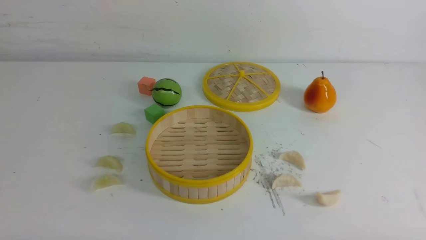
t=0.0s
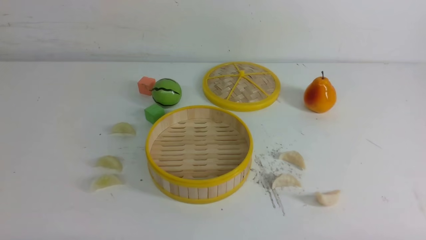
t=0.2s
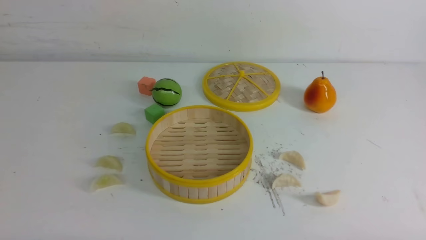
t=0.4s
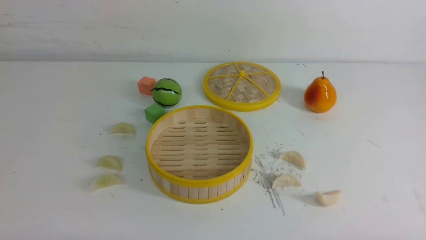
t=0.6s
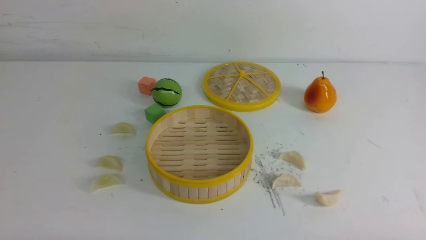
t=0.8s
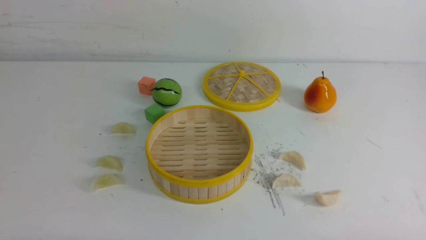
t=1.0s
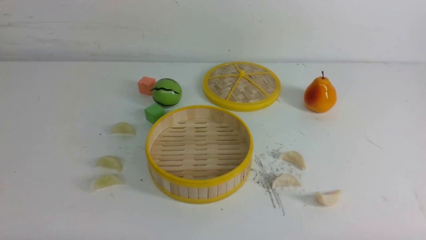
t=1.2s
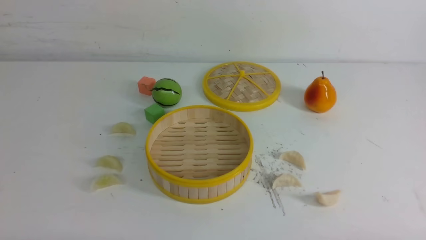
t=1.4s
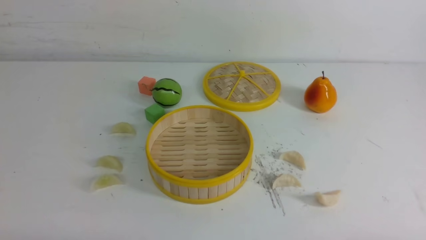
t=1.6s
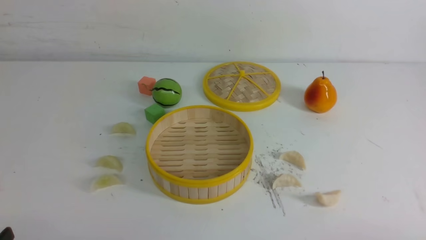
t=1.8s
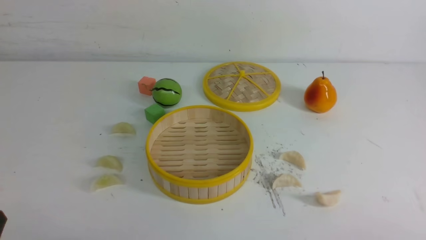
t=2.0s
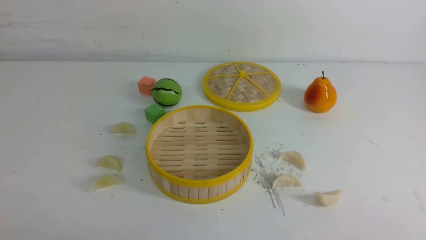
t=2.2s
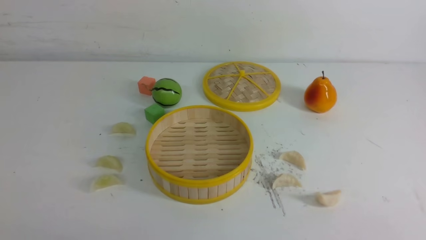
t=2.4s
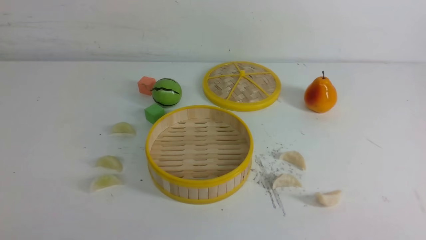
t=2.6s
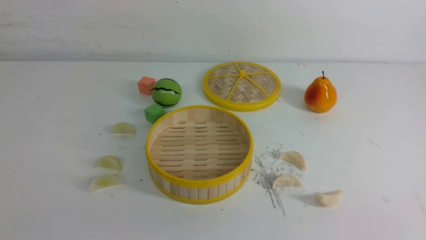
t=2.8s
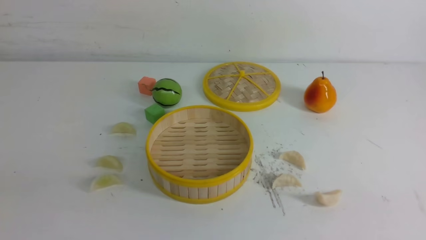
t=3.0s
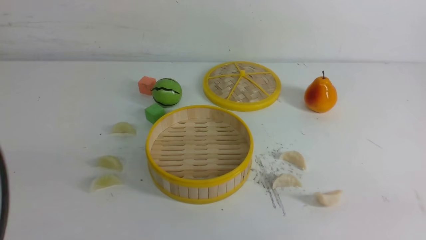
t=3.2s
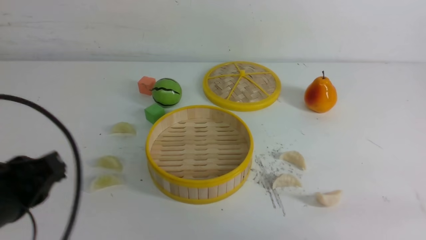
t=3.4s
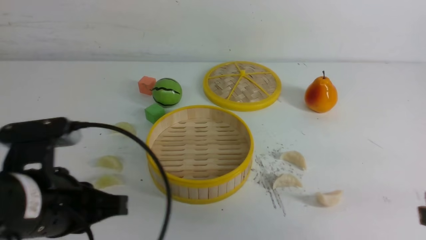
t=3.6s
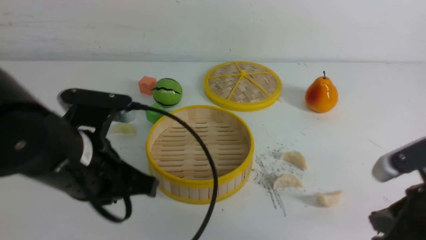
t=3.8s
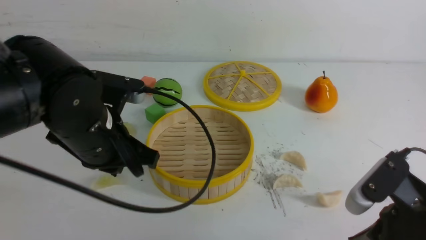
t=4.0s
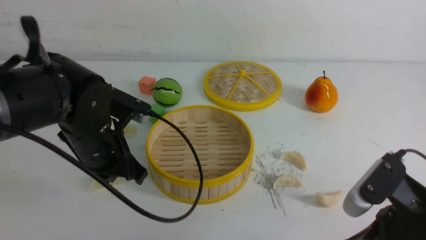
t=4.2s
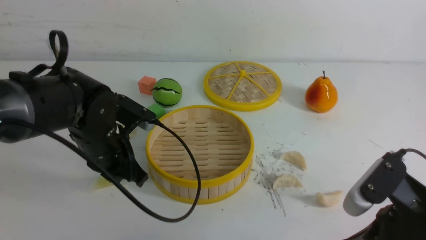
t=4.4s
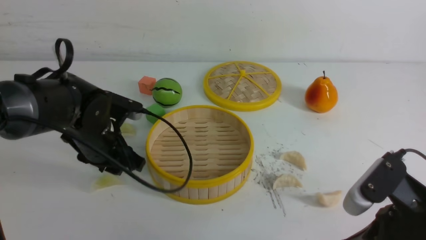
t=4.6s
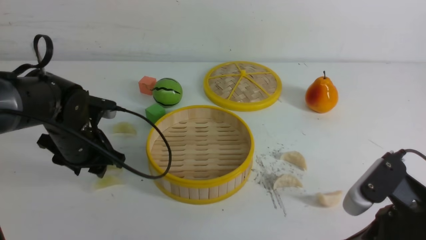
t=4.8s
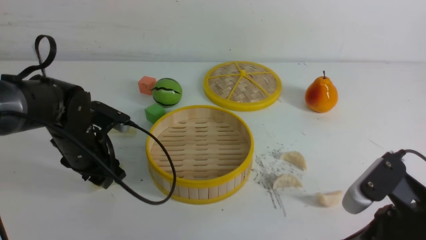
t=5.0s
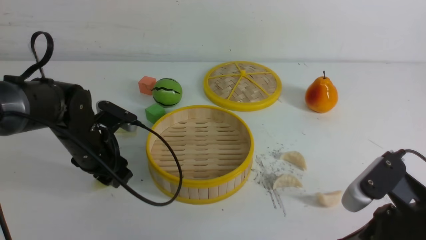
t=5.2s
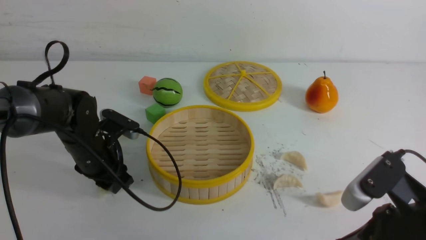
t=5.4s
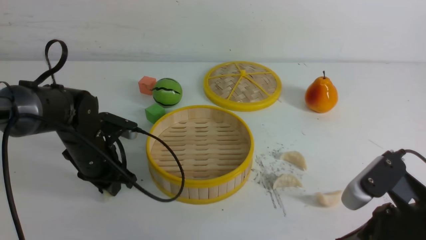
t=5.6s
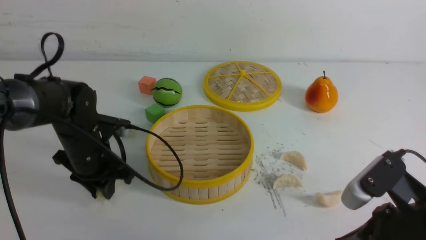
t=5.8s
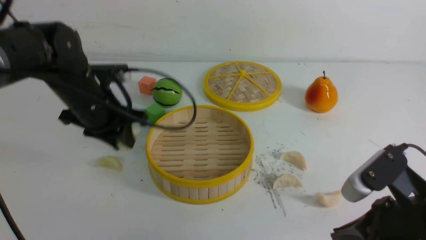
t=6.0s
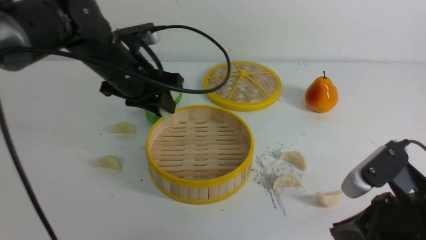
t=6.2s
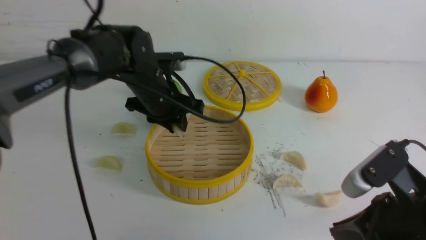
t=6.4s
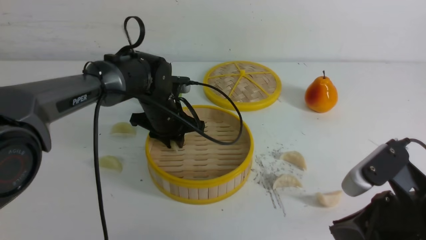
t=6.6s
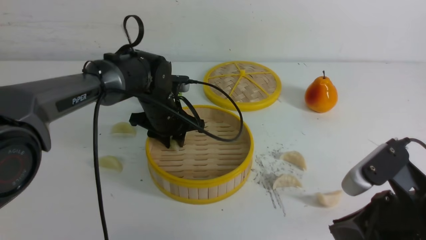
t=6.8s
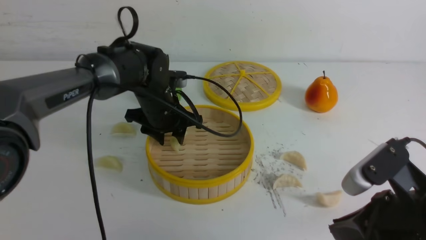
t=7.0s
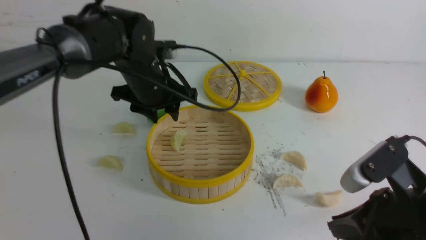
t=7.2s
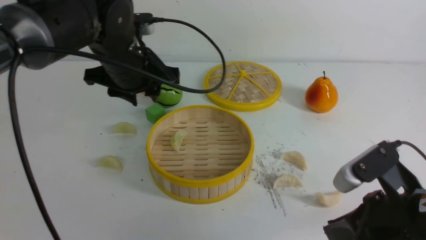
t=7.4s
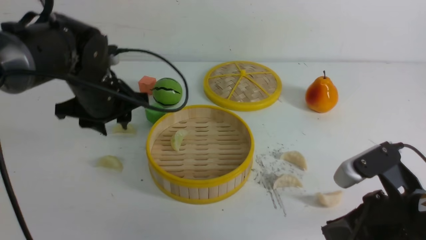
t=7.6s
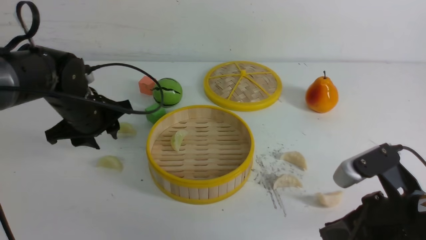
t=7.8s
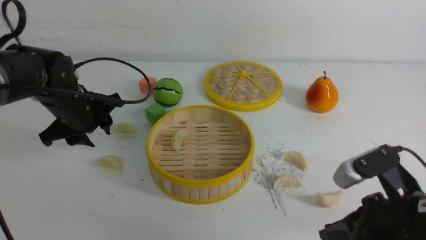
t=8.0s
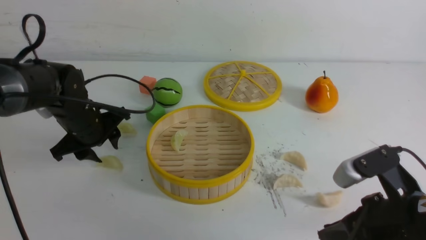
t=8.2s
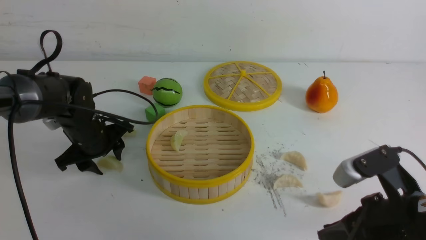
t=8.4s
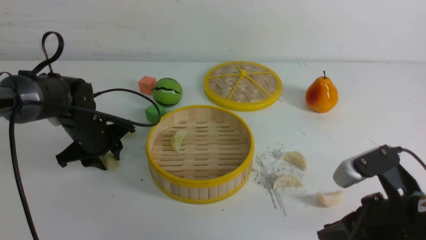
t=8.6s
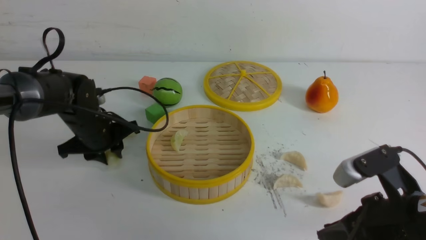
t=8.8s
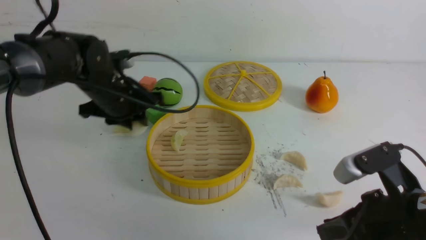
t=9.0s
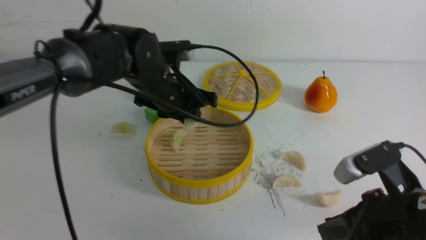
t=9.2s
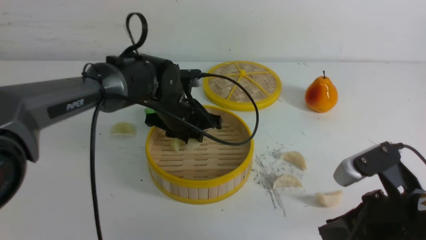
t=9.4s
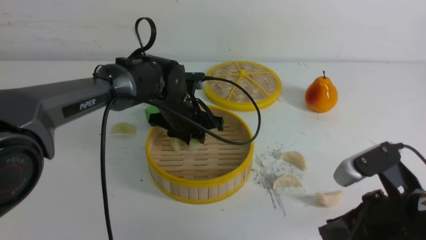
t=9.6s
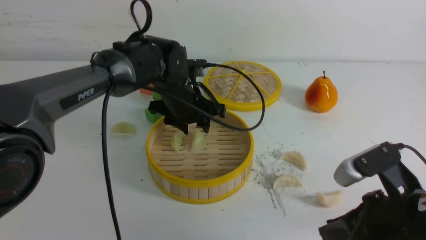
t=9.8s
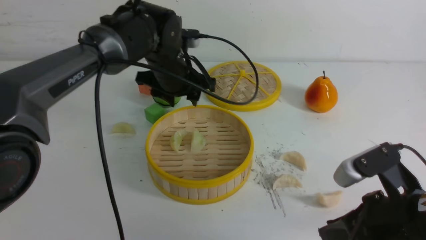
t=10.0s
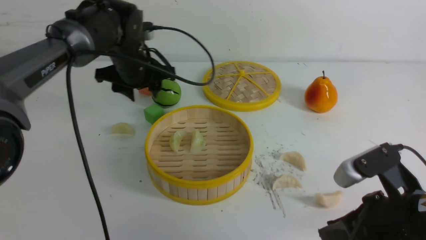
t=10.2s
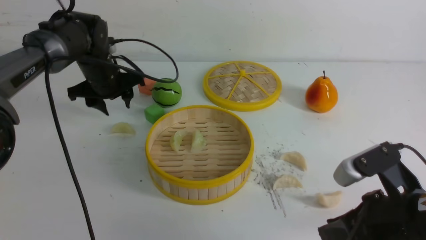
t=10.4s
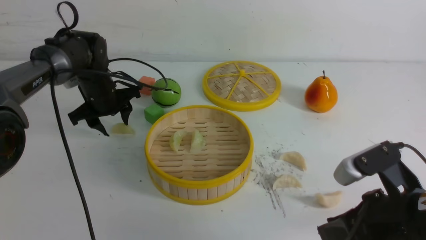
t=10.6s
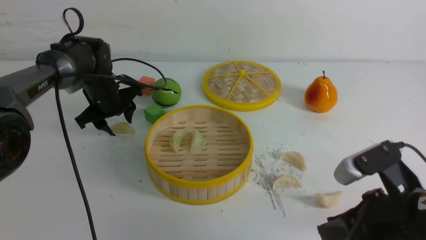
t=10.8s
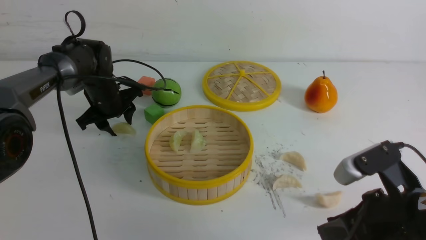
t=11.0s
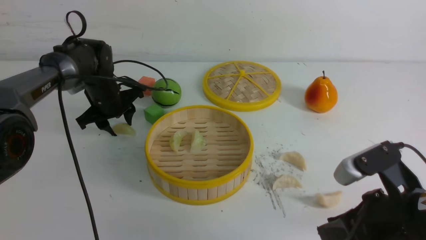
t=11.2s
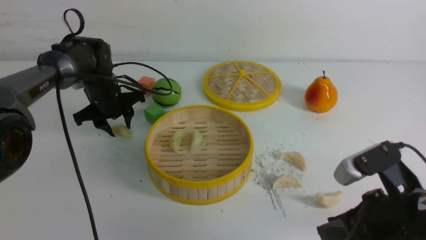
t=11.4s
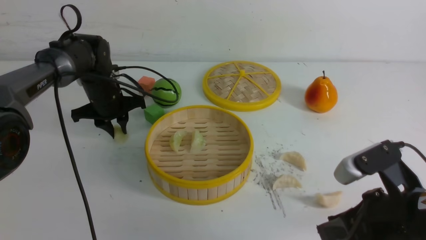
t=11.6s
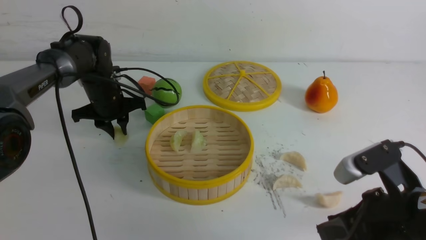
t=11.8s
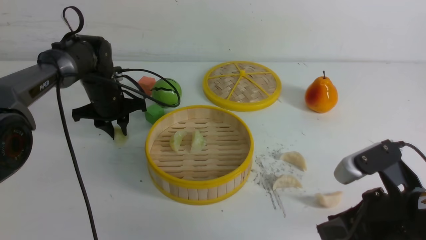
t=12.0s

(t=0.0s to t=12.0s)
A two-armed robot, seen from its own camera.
Task of the whole recording: put the dumplings into the steamer on the white table.
Step, t=0.0s - t=5.6s: use the left arm to grab a dumpling.
Step, t=5.8s - t=7.0s: use the left arm to put the dumpling into the steamer.
Step, t=7.2s - t=8.6s: use the left arm to grab a dumpling.
Step, t=9.0s - t=9.6s: use the left arm to put the dumpling into the steamer.
Step, t=9.8s - t=12.0s: use the left arm to grab a dumpling.
t=3.0s - t=4.4s: The left gripper travels forward and downward by roughly 25 cm, while the right gripper heads forward, to the left and downward, covering roughly 15 cm.
t=4.4s - t=6.0s: The left gripper moves forward, roughly 5 cm, and opens and closes again.
t=6.0s - t=7.6s: The left gripper moves roughly 5 cm downward and comes back.
t=7.6s - t=9.0s: The left gripper reaches about 10 cm downward, then returns.
t=9.0s - t=10.4s: The left gripper moves forward and to the left, approximately 10 cm, and opens.
t=10.4s - t=12.0s: The left gripper ends up some 5 cm from where it was, and closes.

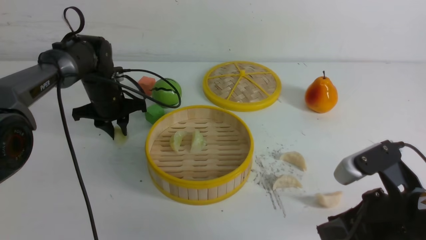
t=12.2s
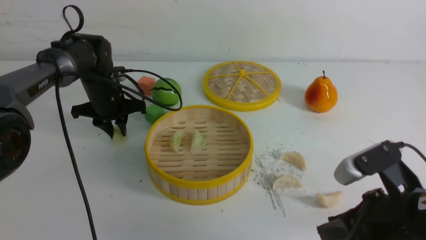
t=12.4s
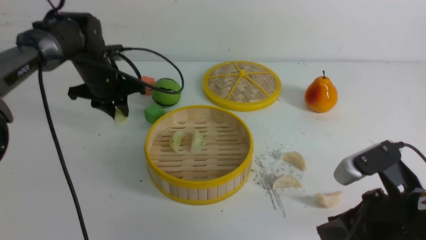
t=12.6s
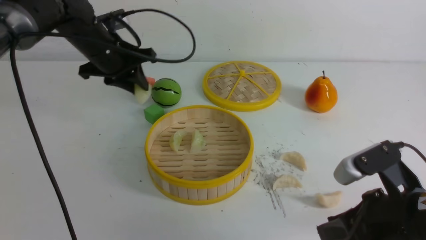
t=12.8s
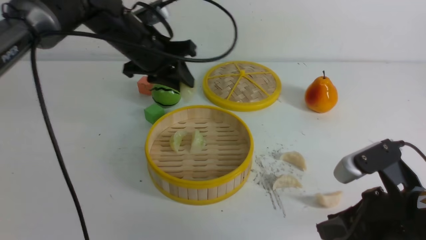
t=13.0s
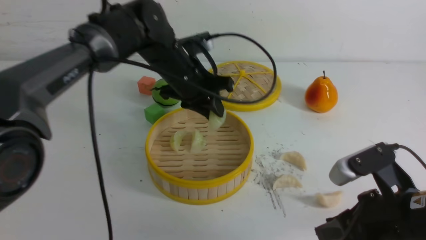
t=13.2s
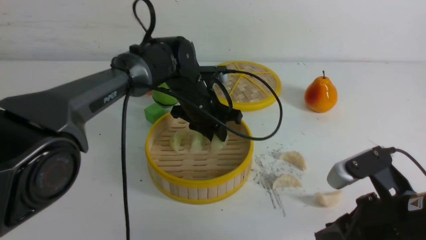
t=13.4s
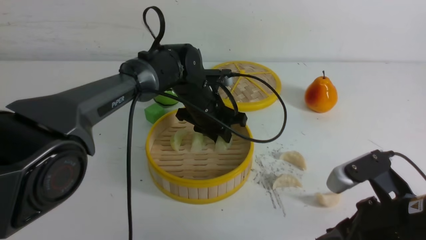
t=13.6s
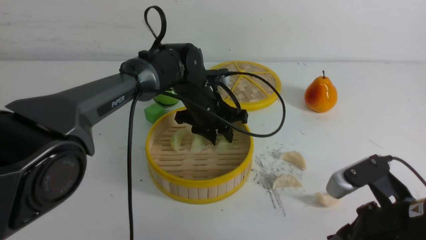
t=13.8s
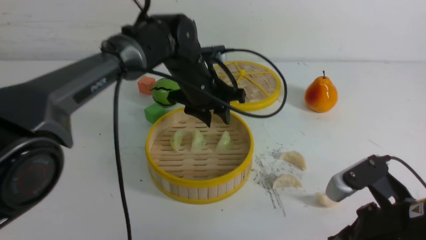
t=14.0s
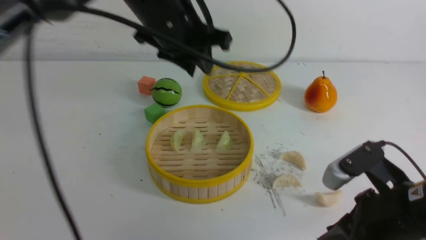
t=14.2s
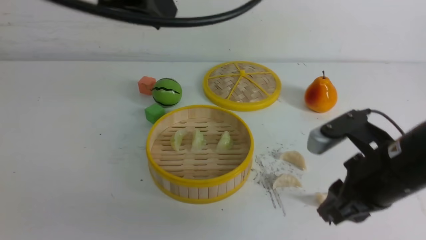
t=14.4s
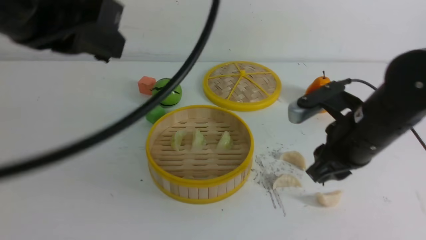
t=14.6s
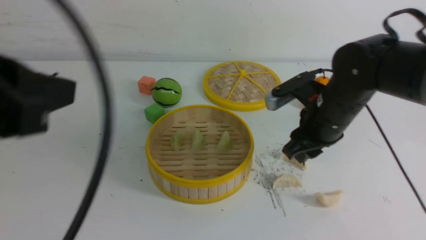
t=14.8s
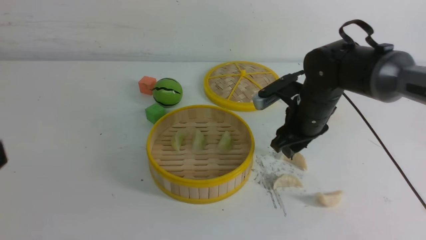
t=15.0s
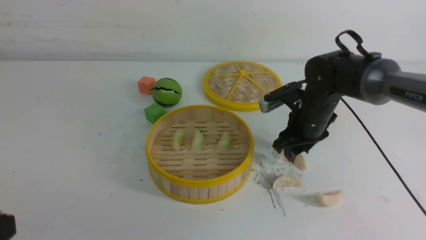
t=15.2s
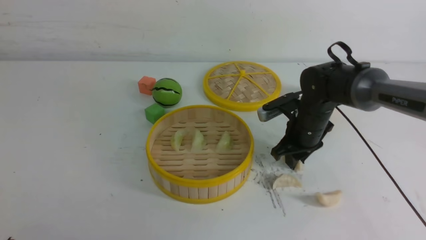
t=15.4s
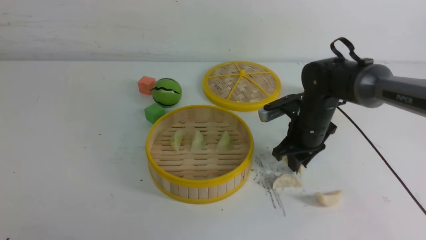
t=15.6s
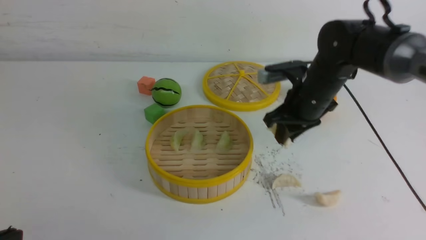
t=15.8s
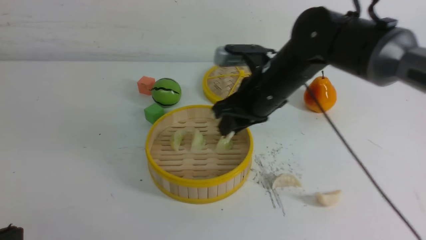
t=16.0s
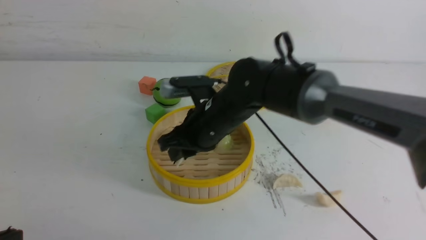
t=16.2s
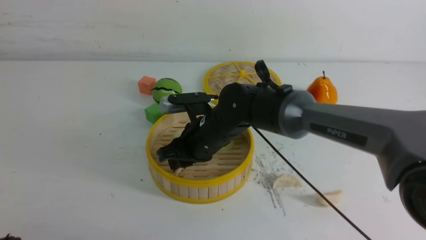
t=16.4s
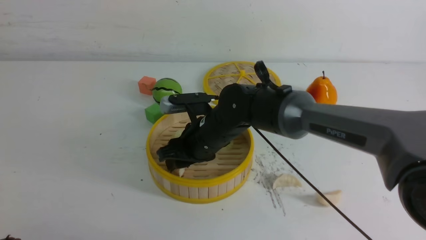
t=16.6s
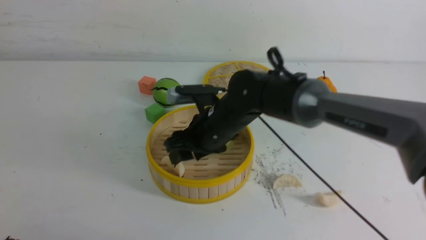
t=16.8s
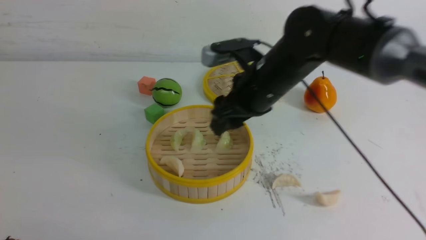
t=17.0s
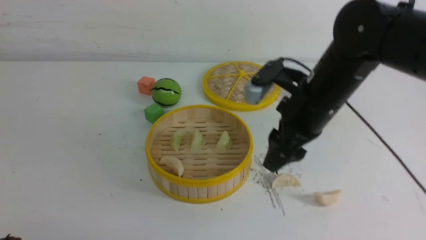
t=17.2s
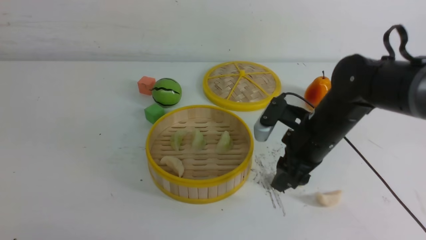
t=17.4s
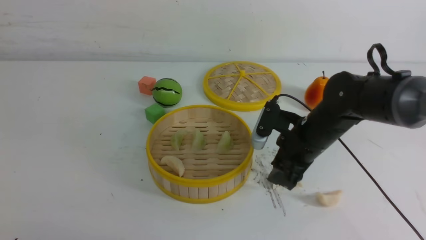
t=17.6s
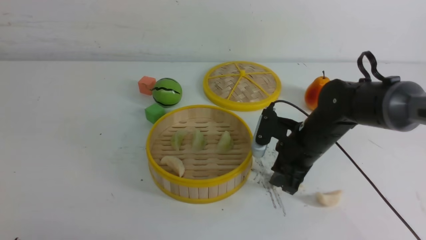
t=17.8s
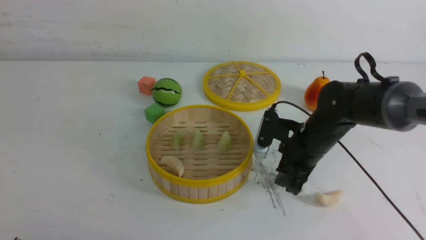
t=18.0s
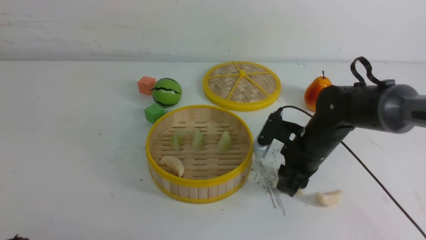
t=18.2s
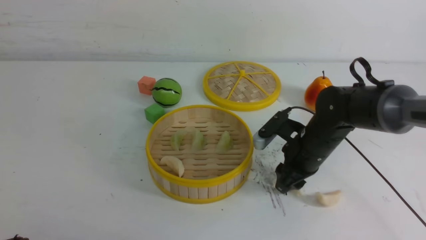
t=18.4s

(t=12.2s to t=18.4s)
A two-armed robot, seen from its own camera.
Task of the whole recording: put the dumplings into the steamer on the white table.
Step, t=12.2s - t=13.6s: use the left arm to put the dumpling into the steamer.
Step, t=14.0s - t=15.6s: use the right arm to grab a dumpling.
Step, t=15.8s - t=16.6s: use the right arm to put the dumpling into the steamer.
t=12.2s - t=13.8s: The left gripper travels to the right by roughly 20 cm.
t=13.8s - t=15.4s: The left gripper is displaced backward and to the left by approximately 40 cm, and closes its fingers, while the right gripper travels forward by approximately 25 cm.
t=15.4s - t=16.8s: The right gripper is displaced to the left and upward by some 15 cm, and opens its fingers.
t=16.8s - t=18.4s: The right gripper heads to the right and downward, covering roughly 15 cm, and closes.
